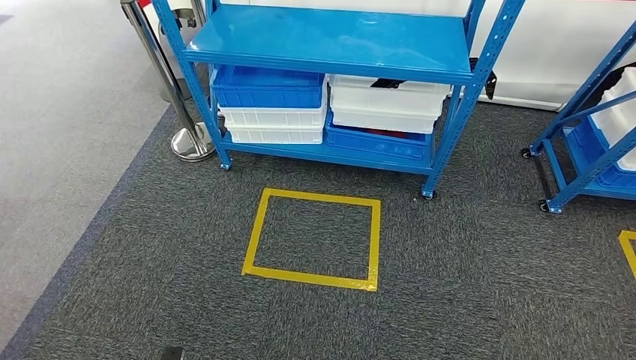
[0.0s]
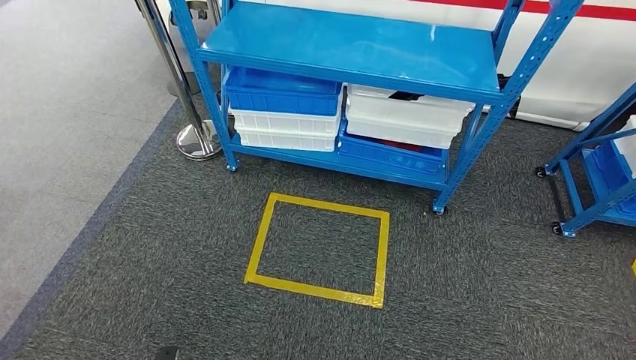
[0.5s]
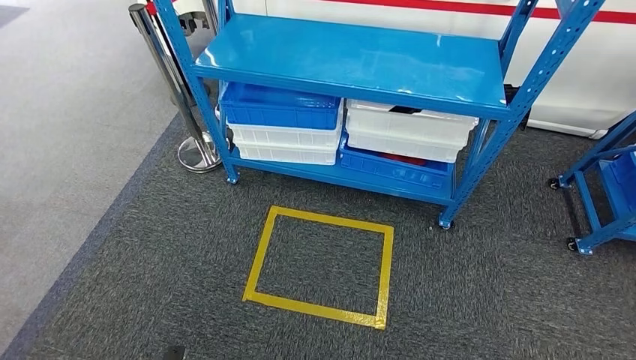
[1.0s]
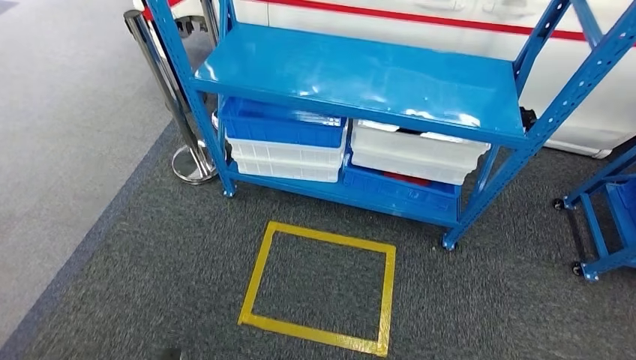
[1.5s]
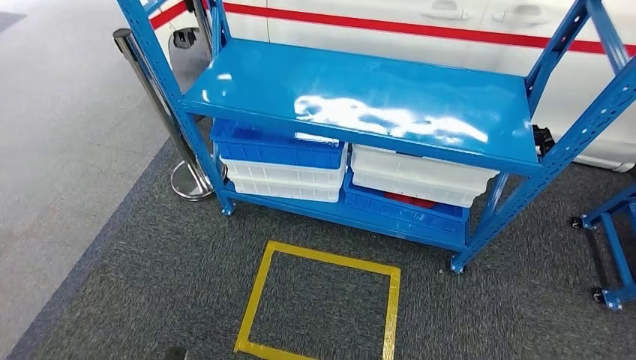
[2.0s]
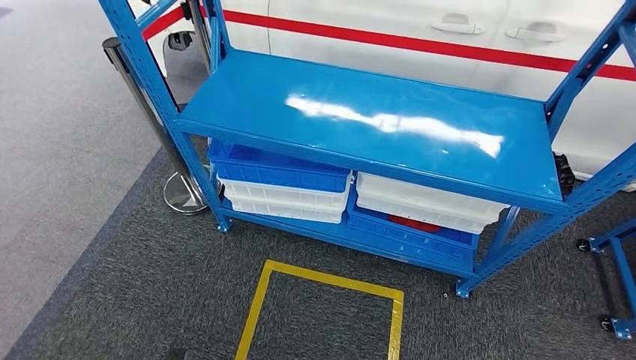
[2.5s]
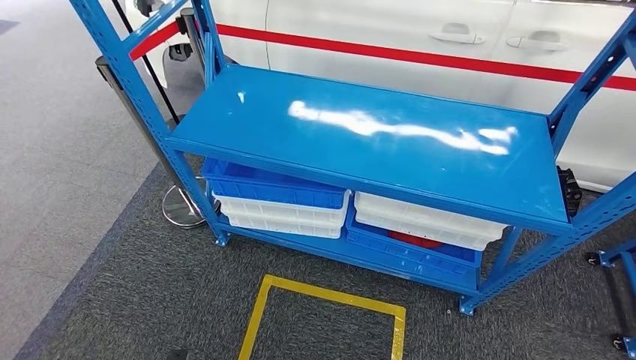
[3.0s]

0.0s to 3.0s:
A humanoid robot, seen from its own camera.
Step, 0.0s to 3.0s: Move to the initial position of the shelf.
